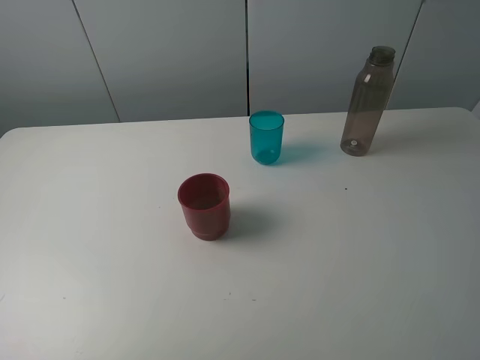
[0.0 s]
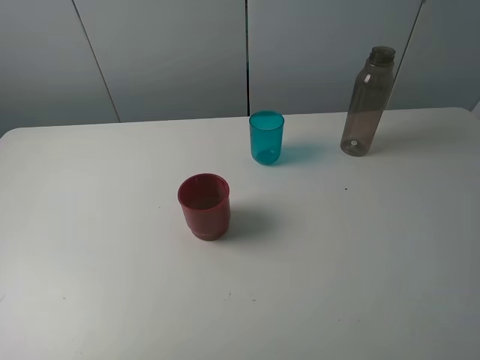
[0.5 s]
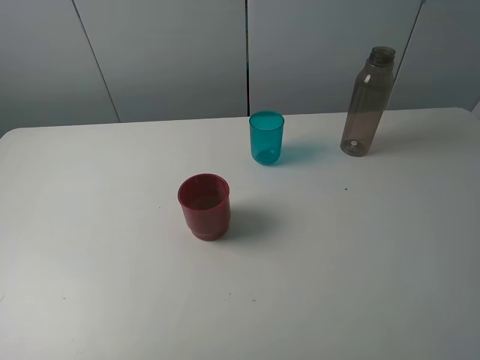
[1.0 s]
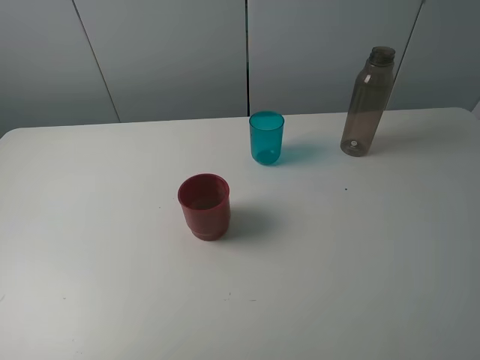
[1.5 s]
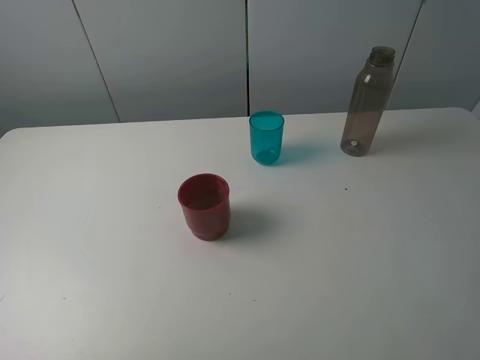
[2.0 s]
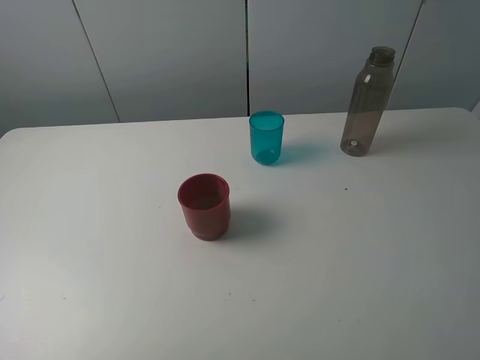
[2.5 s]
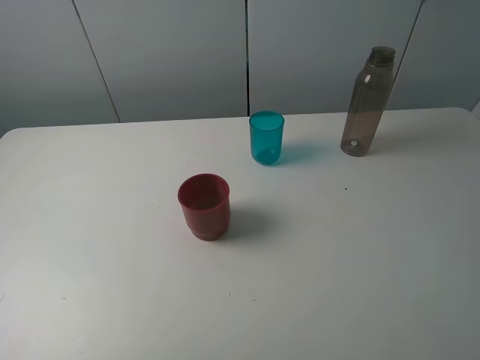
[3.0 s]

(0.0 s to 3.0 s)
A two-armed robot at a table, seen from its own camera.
Task of the whole recording: pick up the bottle and pour water into the cup, then pick up the cup containing water and pour it into another cup.
1.5 s - 3.0 s: Both grippers stay put.

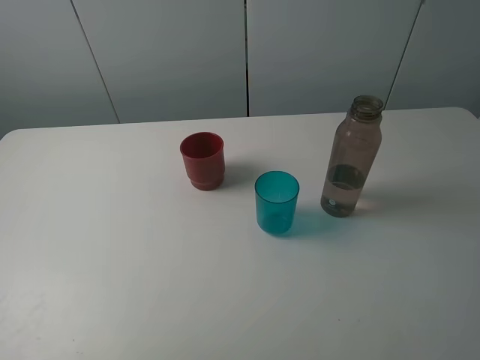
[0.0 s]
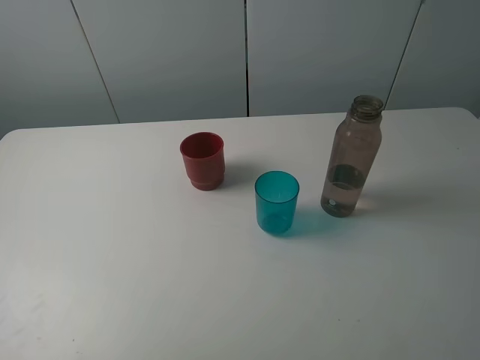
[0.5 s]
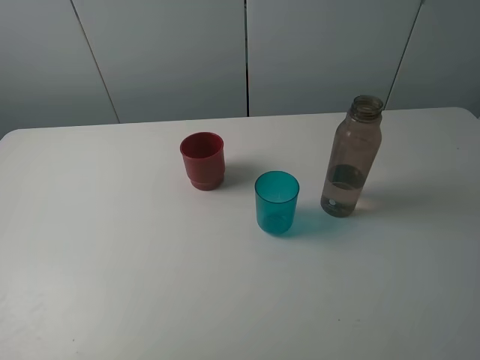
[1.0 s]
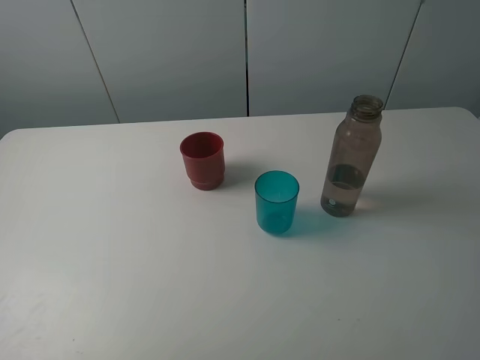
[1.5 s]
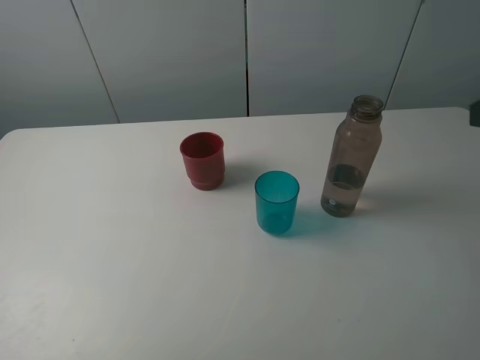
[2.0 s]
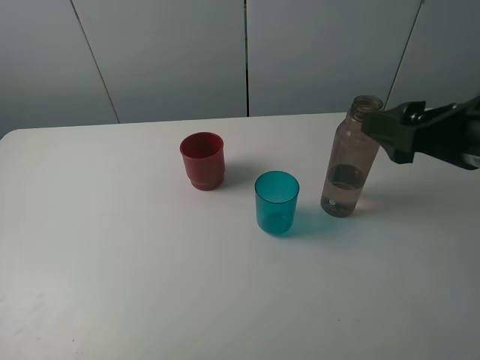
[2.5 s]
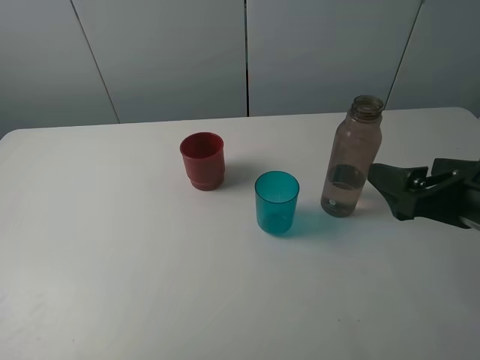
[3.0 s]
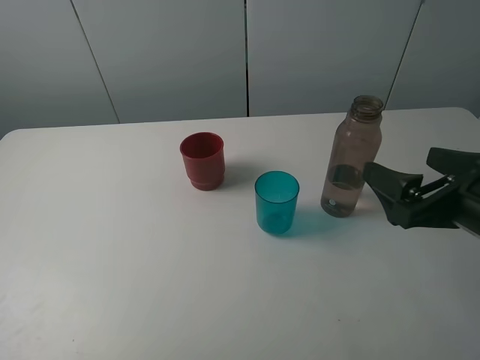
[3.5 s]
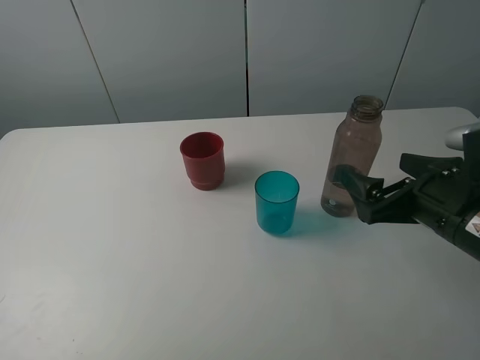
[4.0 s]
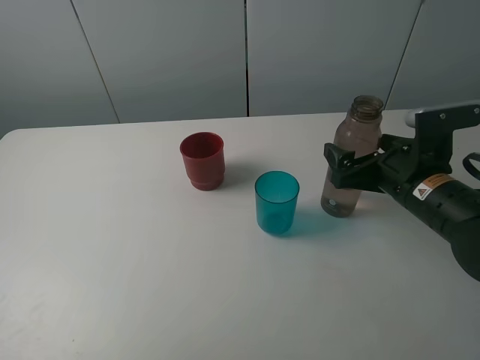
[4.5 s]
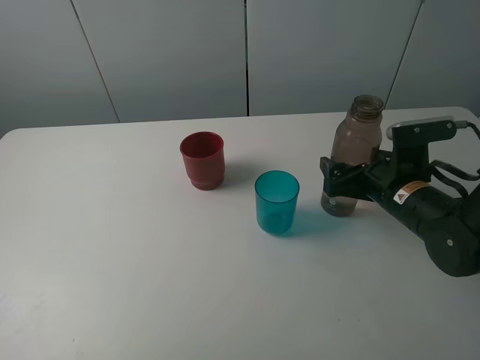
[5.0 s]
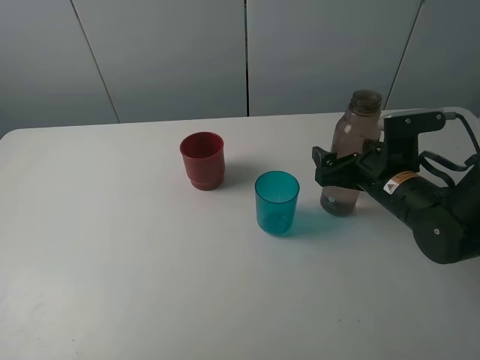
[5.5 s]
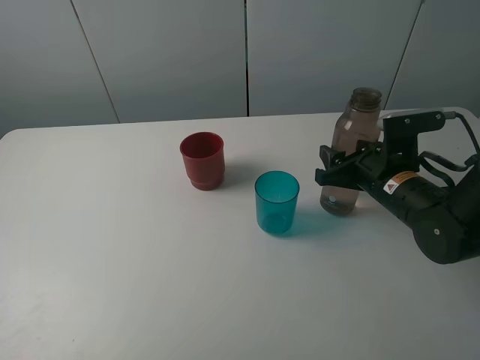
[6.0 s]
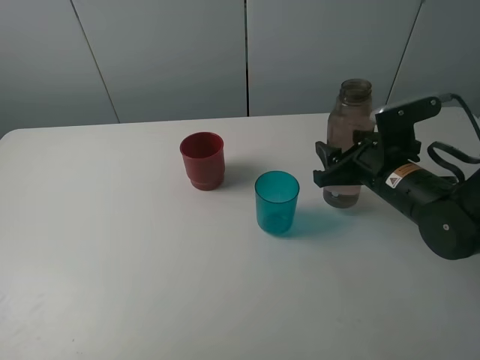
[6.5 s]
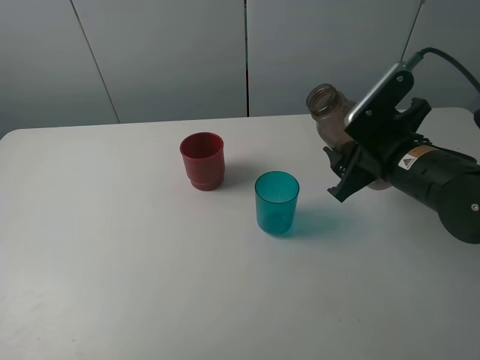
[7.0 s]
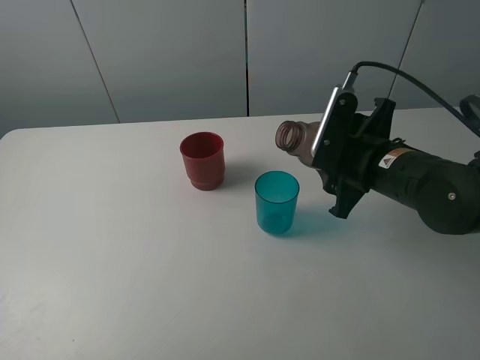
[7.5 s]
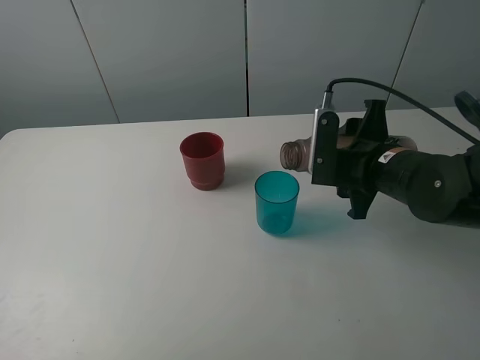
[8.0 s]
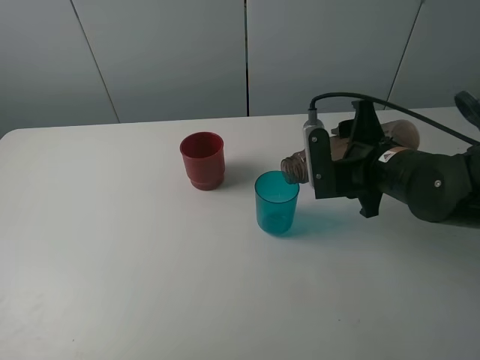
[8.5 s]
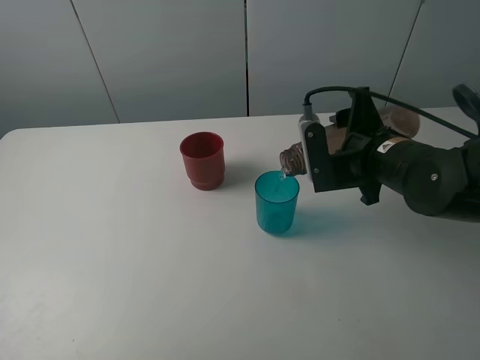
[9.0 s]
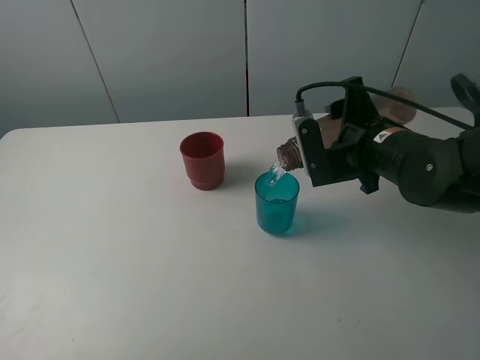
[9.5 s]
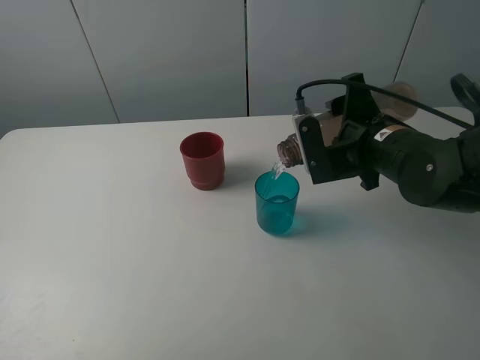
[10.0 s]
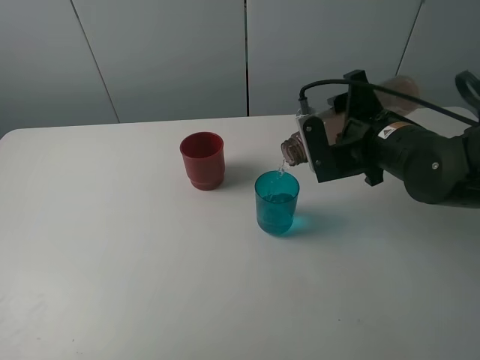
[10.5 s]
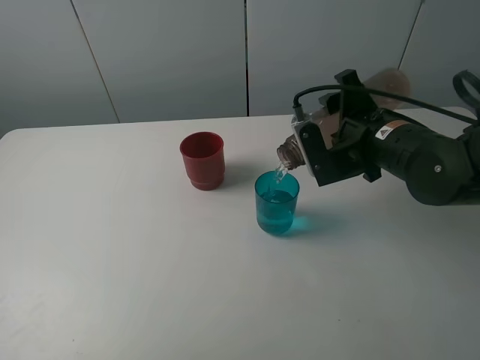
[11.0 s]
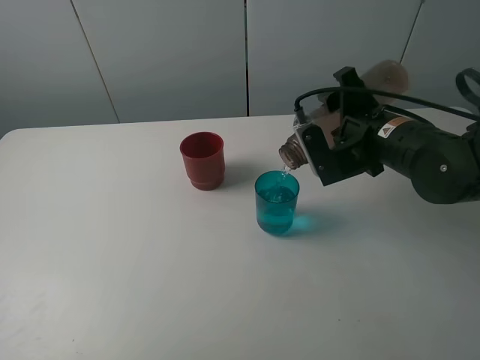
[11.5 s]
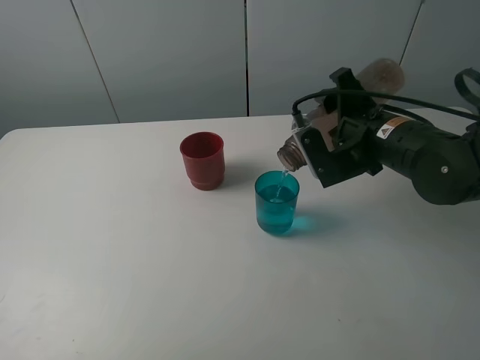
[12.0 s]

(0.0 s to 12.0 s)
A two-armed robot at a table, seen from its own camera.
Task of the whole recording: pick up the bottle and pour water into the cup, then pick up the cup containing water and pour it into another cup.
Step, 0.0 s - 5.5 s: Grasp the brown bottle with the right gripper.
2.0 s - 4.0 s: The right gripper is displaced downward by approximately 15 cm.
4.0 s - 6.0 s: The right gripper travels forward by roughly 10 cm, and closes up.
6.0 s - 8.0 s: The right gripper ends up about 5 cm from where it was.
10.0 s - 12.0 s: There are only small adjustments of the grippers.

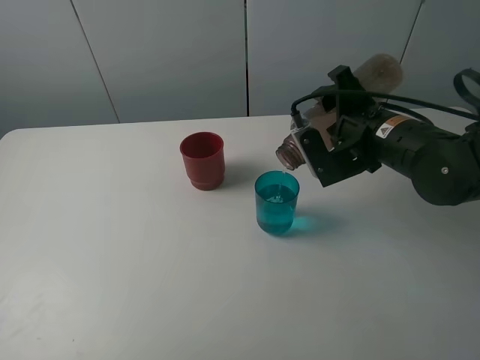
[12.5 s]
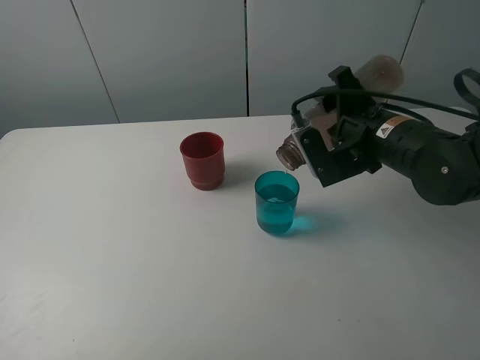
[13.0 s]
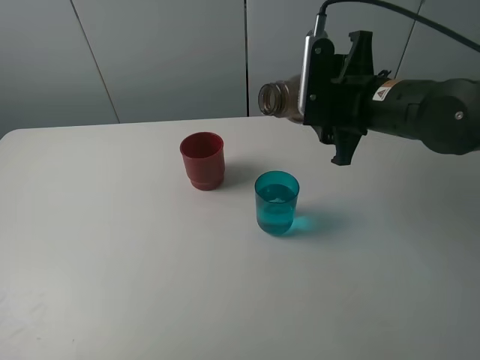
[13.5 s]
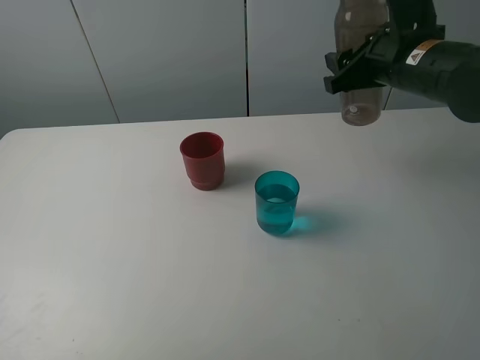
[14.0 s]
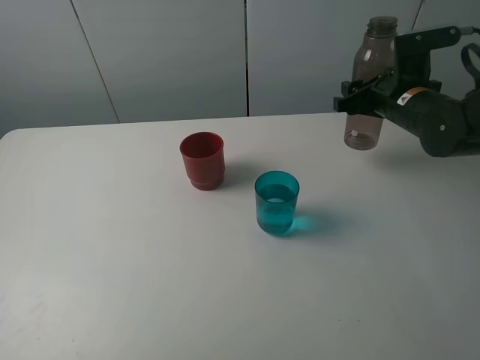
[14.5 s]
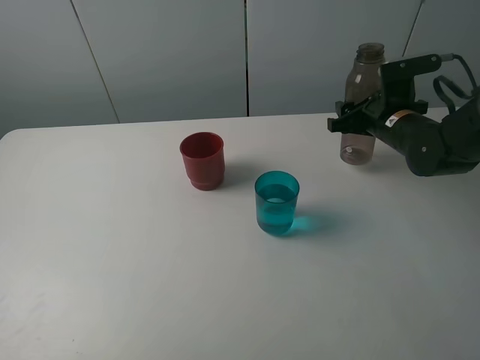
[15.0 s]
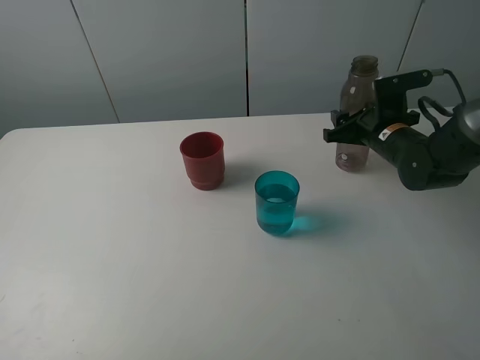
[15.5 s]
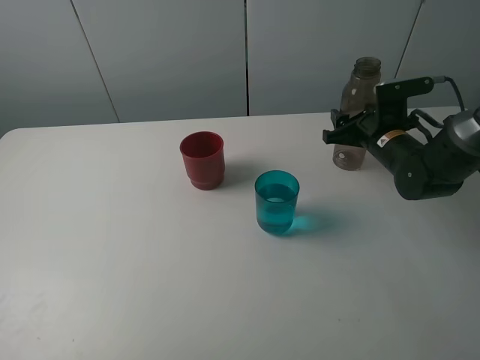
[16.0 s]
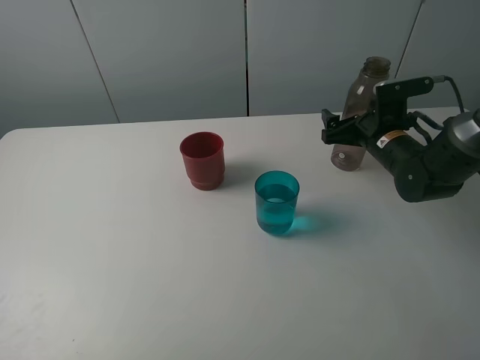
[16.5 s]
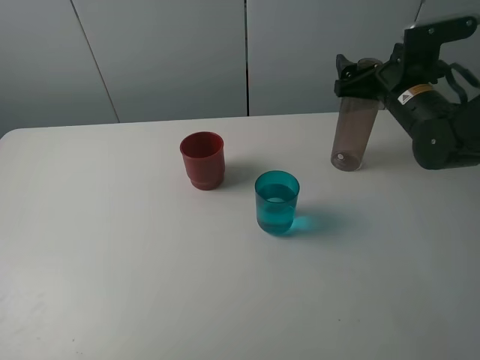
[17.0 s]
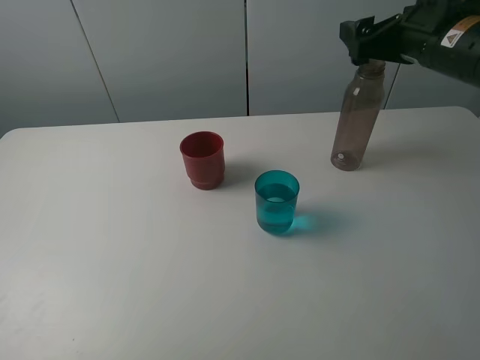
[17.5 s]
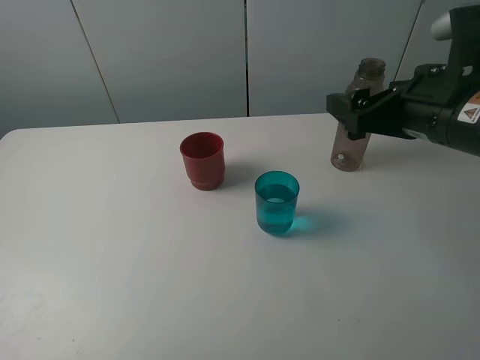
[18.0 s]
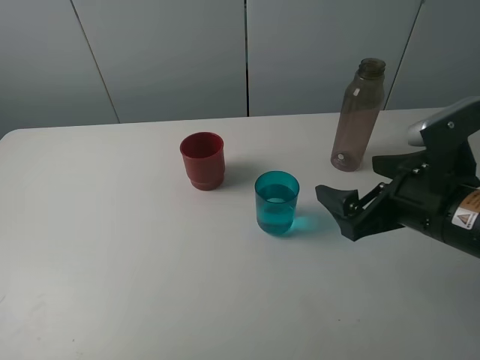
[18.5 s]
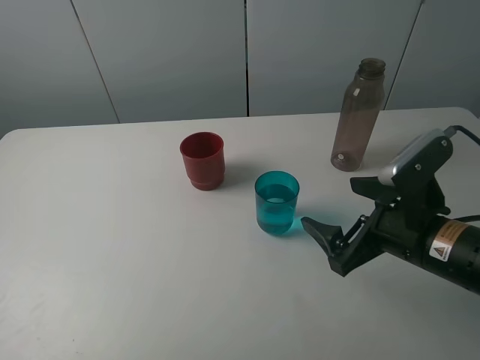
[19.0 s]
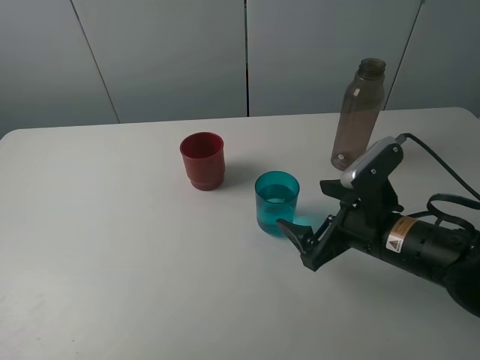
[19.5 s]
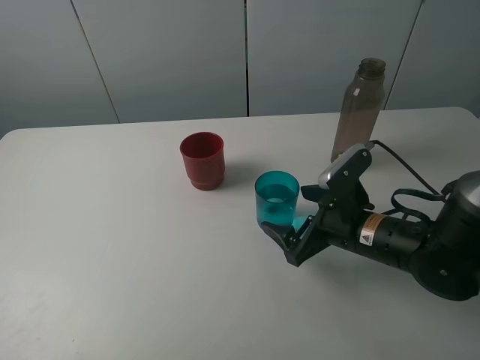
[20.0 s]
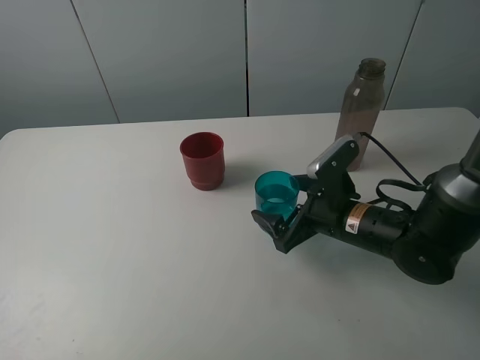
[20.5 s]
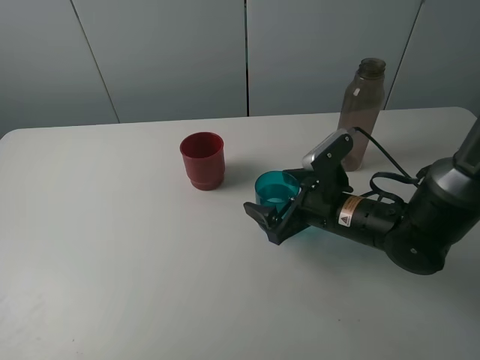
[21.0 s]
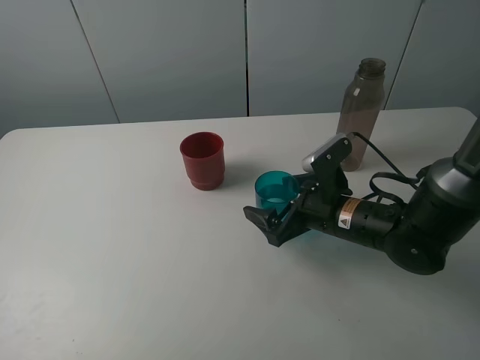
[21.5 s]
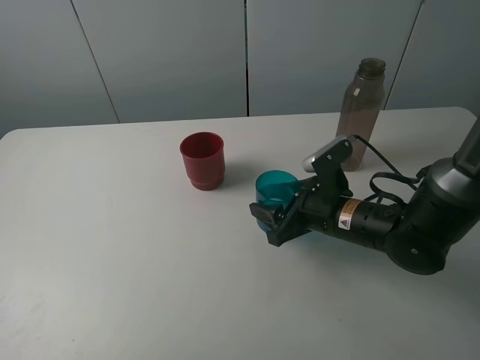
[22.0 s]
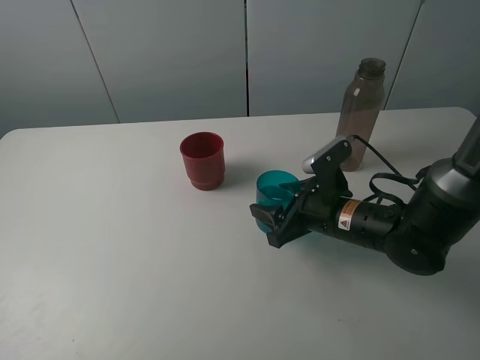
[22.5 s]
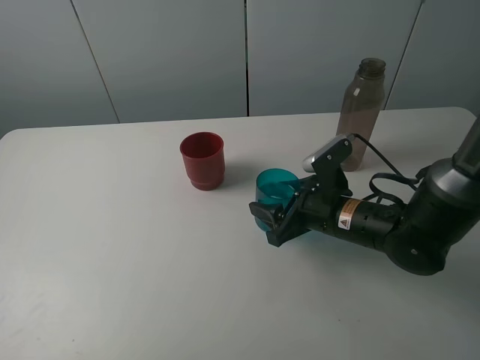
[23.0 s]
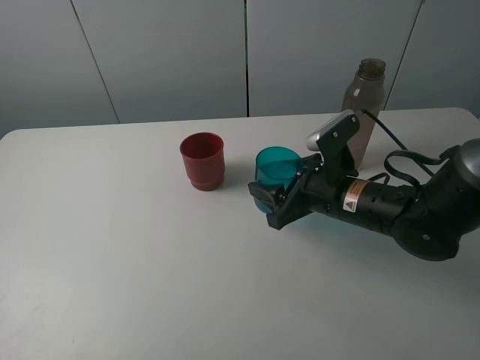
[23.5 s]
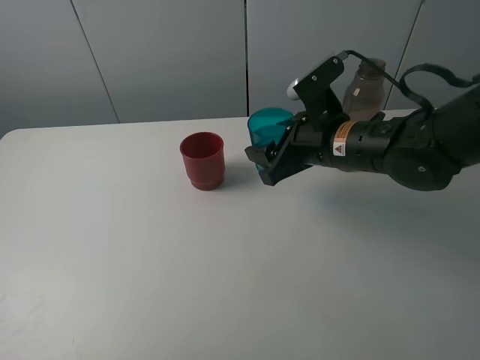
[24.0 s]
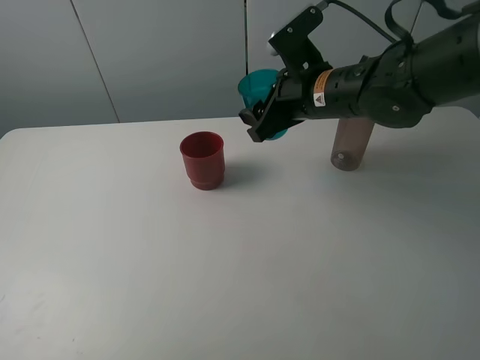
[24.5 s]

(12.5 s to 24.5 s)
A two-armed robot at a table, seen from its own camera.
Task of the whole recording: pick up the bottle and pour water into the cup, then pick up the cup containing water and pour it into another cup.
Step, 13.5 s - 16.5 s: Place the brown bottle with the right gripper.
Step, 17.0 s - 22.0 s: Grasp the blue cup with the right gripper.
12.5 s - 14.5 s: The right gripper goes some 10 cm forward and to the right.
14.5 s - 16.5 s: The right gripper moves downward, roughly 5 cm, and opens up.
16.5 s - 18.5 s: The right gripper moves backward, approximately 20 cm.
18.5 s - 20.5 s: The right gripper heads downward, forward and to the left, covering roughly 15 cm.
20.5 s - 22.5 s: The right gripper closes its fingers.
22.5 s - 24.5 s: The right gripper is displaced upward and forward by approximately 15 cm.
